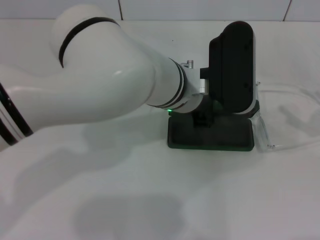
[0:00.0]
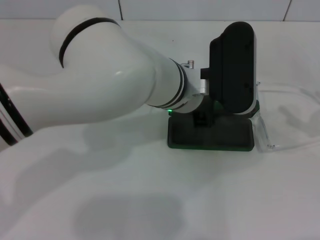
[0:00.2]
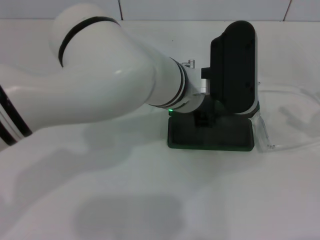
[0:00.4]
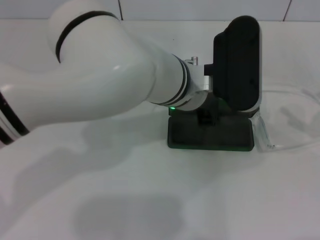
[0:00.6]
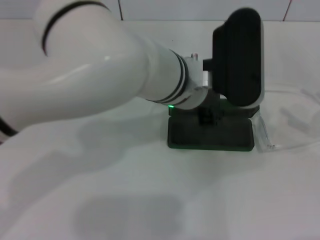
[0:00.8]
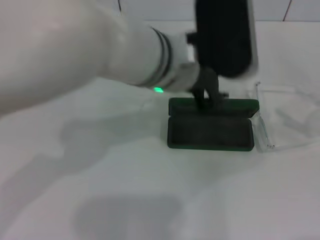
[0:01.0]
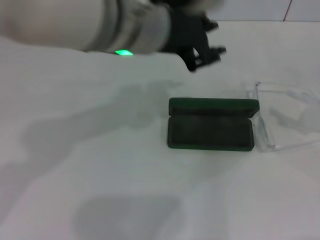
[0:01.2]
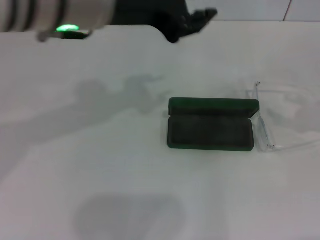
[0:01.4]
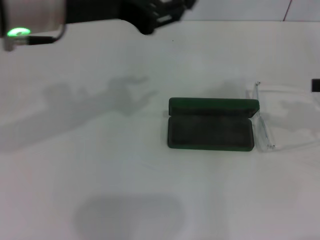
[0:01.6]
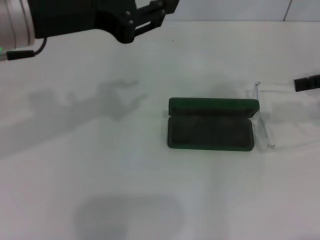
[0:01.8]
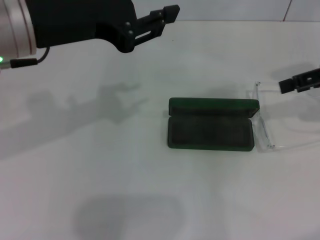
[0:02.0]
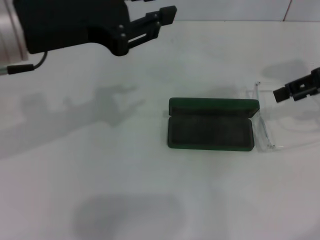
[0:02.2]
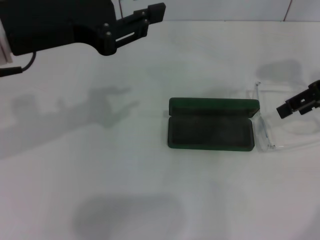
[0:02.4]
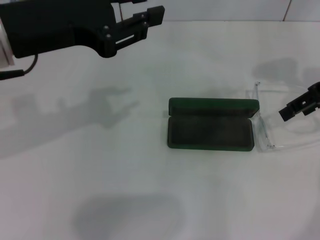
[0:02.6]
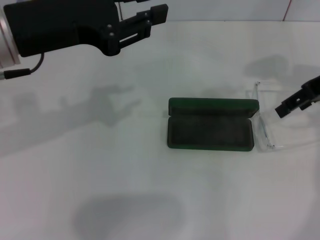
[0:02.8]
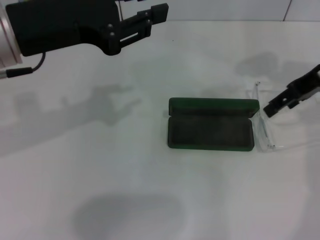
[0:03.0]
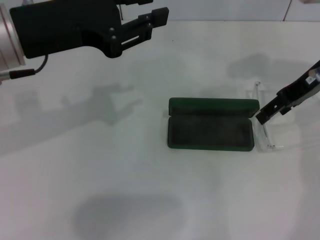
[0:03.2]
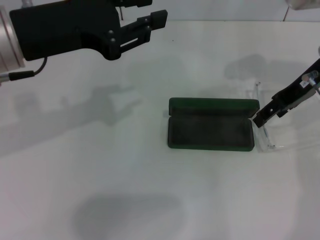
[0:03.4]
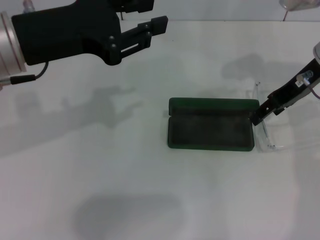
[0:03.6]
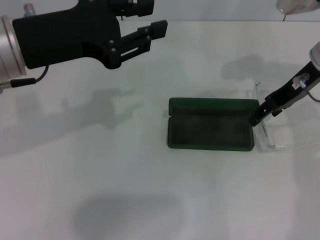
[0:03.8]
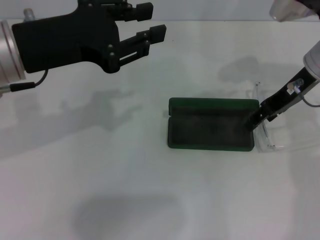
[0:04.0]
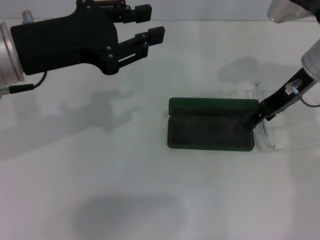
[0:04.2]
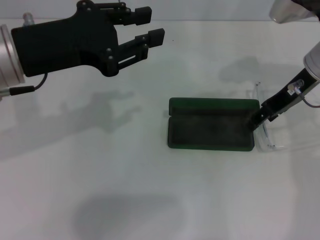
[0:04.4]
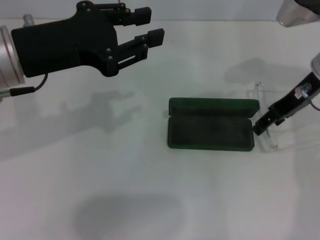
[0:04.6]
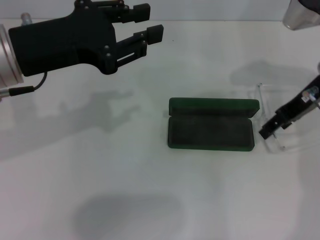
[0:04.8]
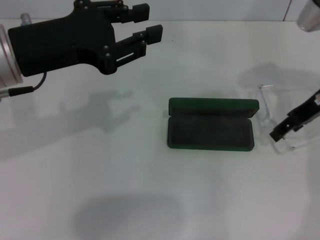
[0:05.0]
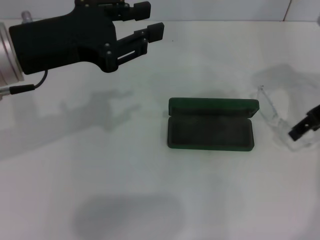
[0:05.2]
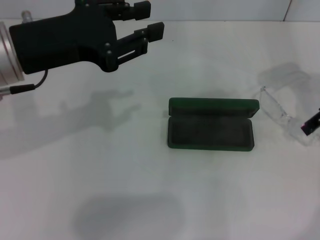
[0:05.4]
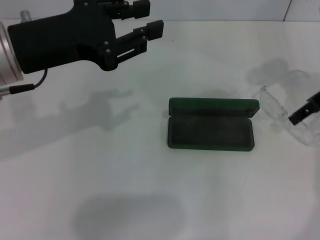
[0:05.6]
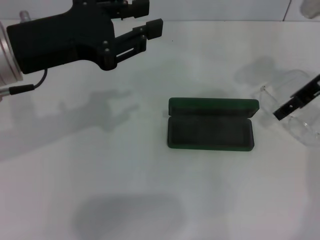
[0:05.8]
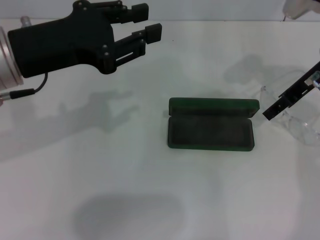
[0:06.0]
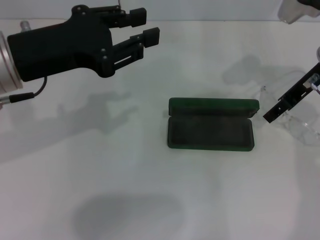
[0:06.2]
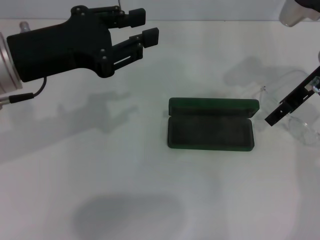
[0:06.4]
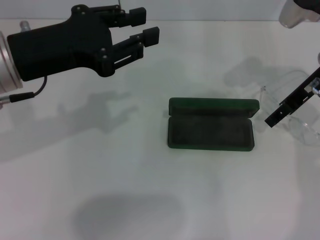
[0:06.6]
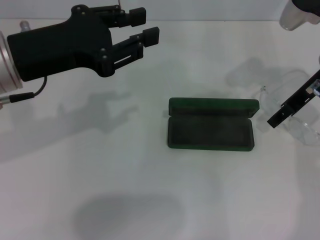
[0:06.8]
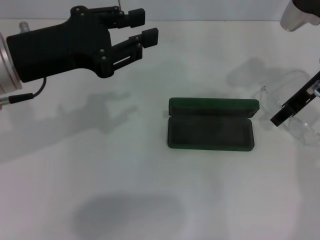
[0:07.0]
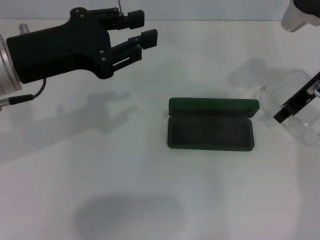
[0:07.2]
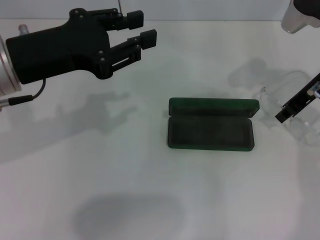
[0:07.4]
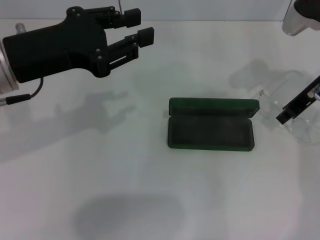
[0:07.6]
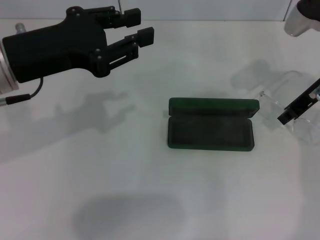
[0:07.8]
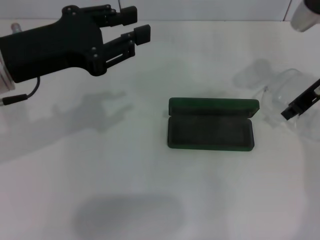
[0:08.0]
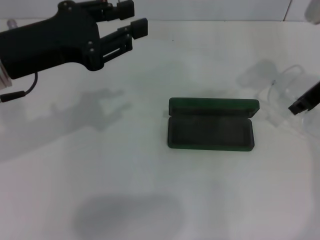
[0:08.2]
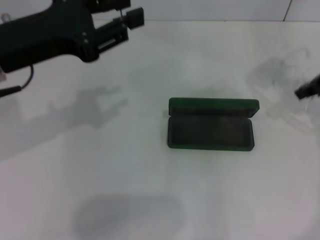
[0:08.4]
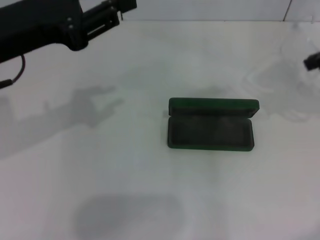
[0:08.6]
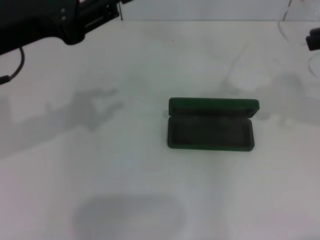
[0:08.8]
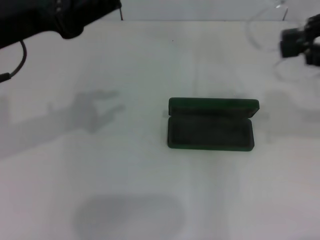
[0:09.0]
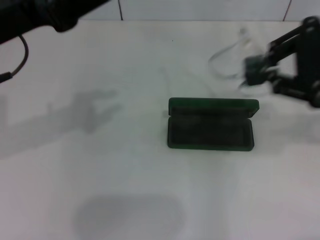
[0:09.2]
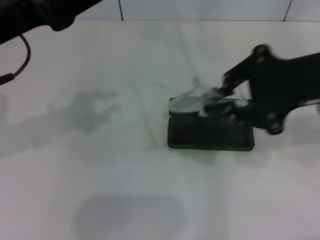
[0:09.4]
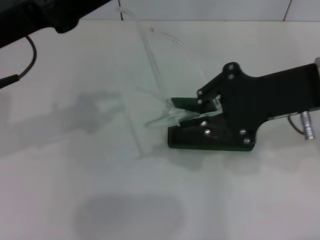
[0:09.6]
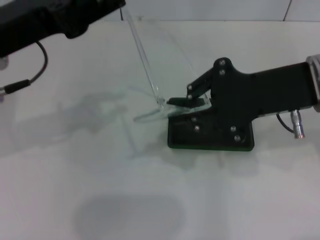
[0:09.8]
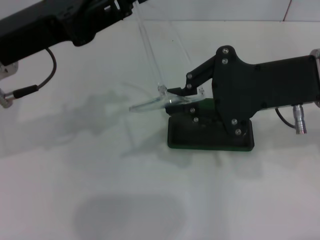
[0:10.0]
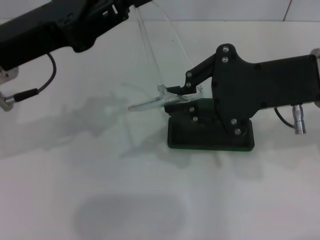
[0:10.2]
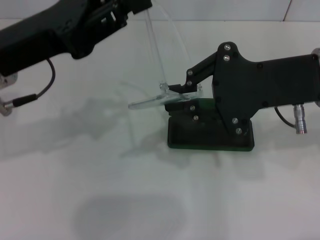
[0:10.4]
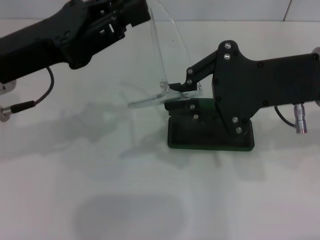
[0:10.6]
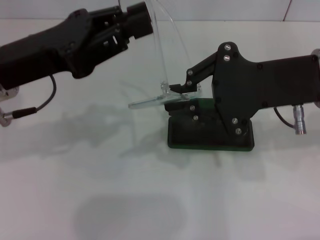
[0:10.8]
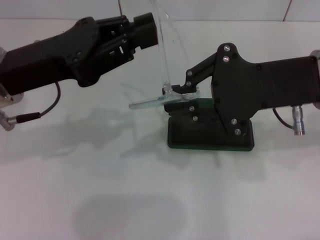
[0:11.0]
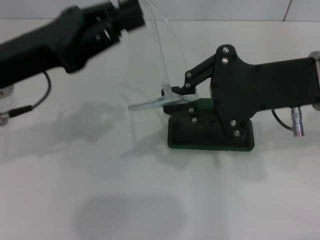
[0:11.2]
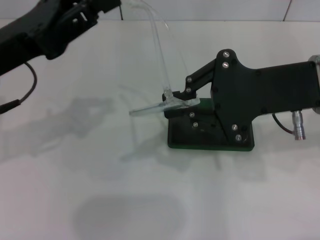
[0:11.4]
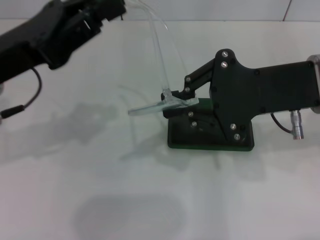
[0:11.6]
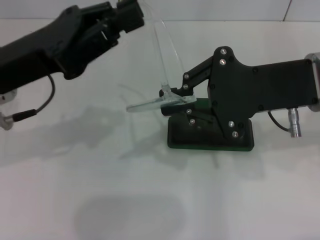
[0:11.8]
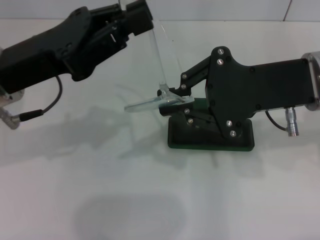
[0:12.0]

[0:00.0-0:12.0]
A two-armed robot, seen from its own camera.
Step, 0:00.6 to 0:07.2: Grab the eyeglass frame with your right hand.
0:00.0 to 0:01.6: The left gripper travels to the left and upward by some 20 cm, while the right gripper shifts roughly 10 cm upward and forward.
0:01.6 to 0:03.0: The right gripper is displaced to the left and forward by approximately 15 cm. Meanwhile the left gripper ends up roughly 5 cm from where it was.
0:03.0 to 0:04.4: The right gripper changes place by approximately 5 cm.
0:06.0 to 0:07.6: The right gripper closes up.
0:07.6 to 0:09.0: The right gripper moves upward and backward, roughly 15 cm.
0:09.0 to 0:10.4: The right gripper goes some 10 cm to the left and downward.
0:10.4 to 0:12.0: The grippers move only a little.

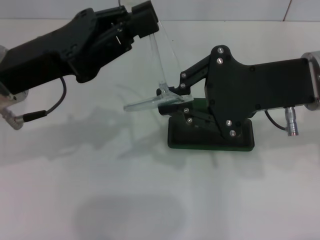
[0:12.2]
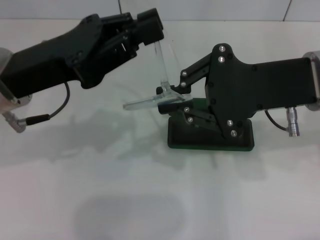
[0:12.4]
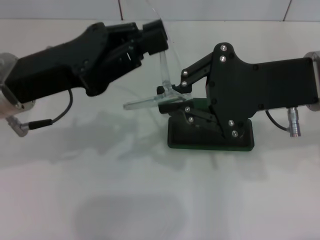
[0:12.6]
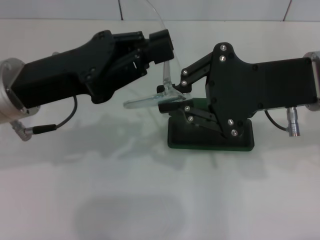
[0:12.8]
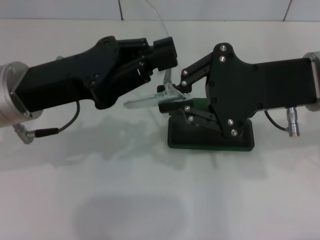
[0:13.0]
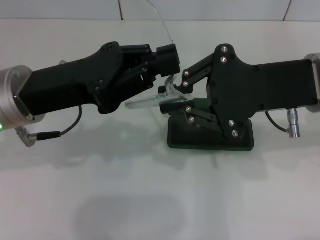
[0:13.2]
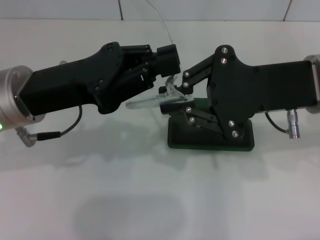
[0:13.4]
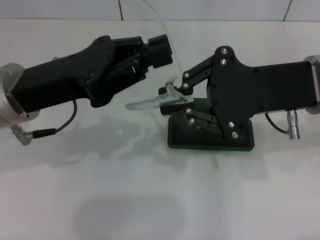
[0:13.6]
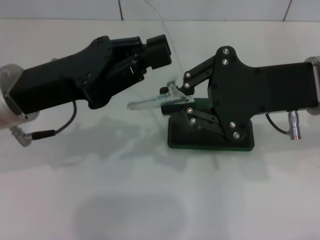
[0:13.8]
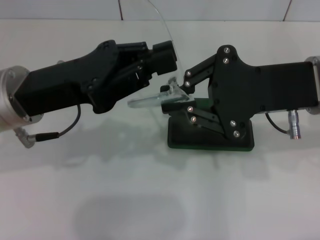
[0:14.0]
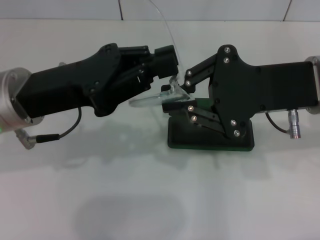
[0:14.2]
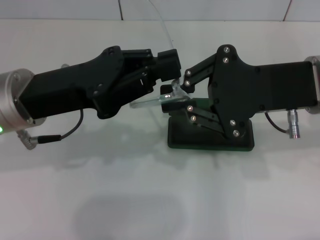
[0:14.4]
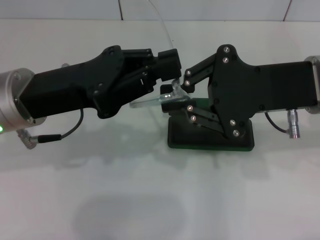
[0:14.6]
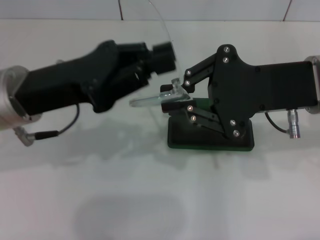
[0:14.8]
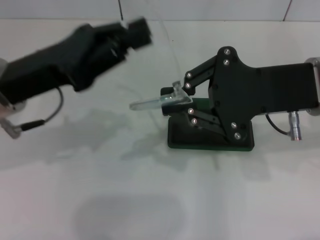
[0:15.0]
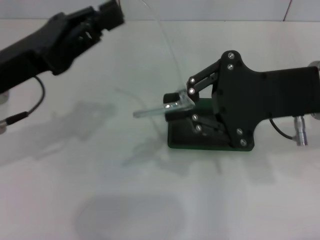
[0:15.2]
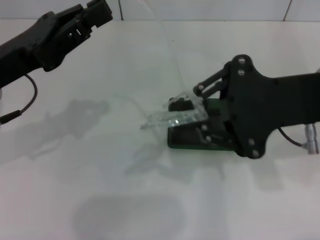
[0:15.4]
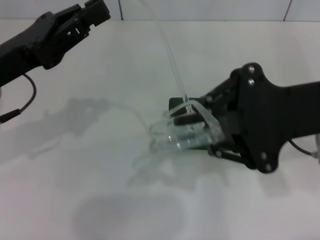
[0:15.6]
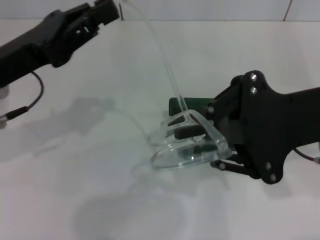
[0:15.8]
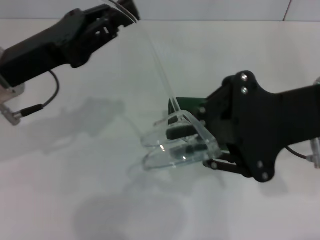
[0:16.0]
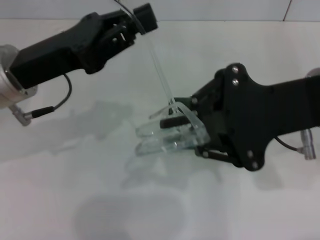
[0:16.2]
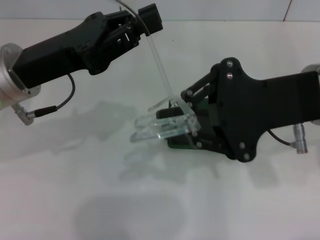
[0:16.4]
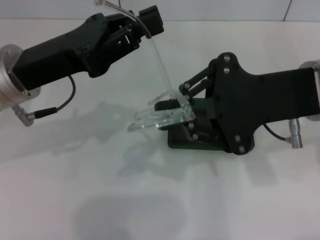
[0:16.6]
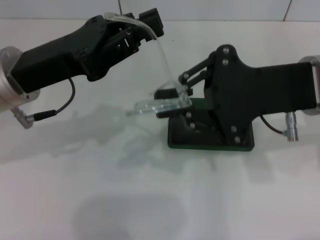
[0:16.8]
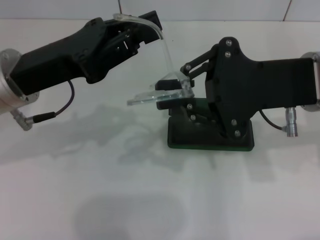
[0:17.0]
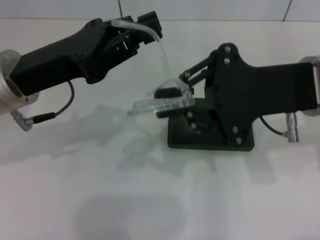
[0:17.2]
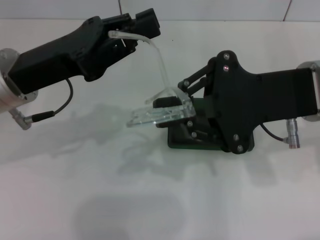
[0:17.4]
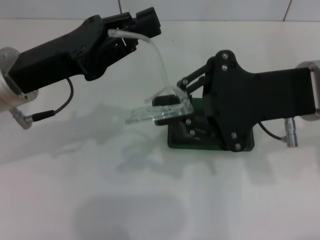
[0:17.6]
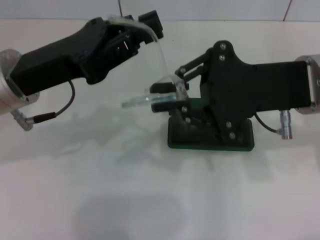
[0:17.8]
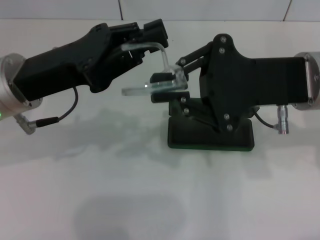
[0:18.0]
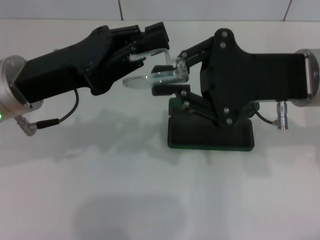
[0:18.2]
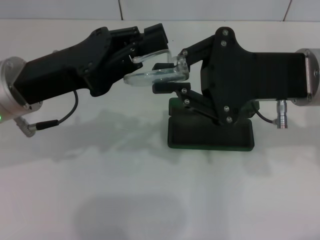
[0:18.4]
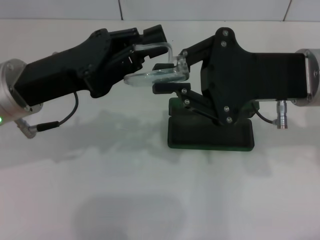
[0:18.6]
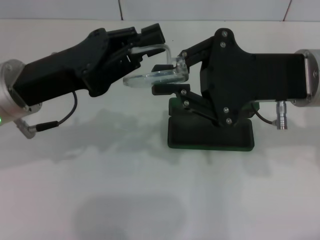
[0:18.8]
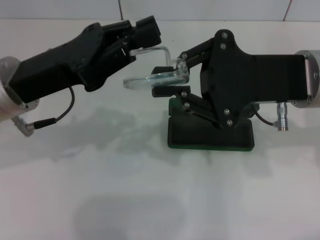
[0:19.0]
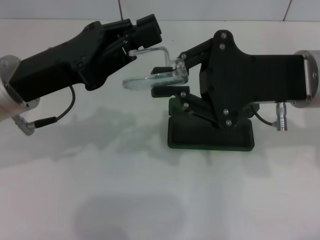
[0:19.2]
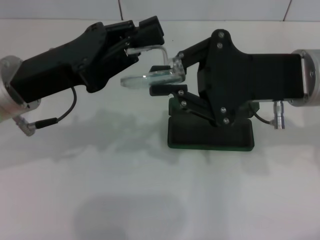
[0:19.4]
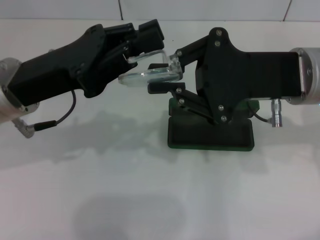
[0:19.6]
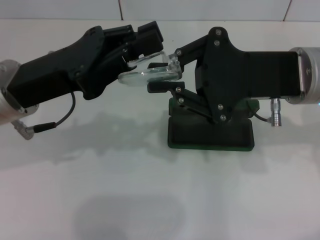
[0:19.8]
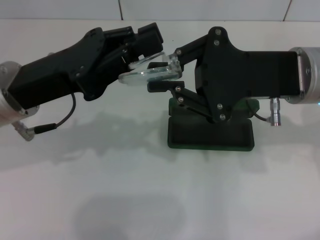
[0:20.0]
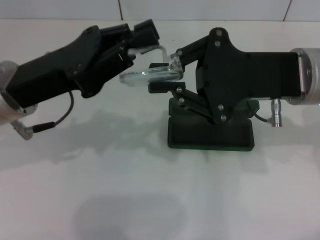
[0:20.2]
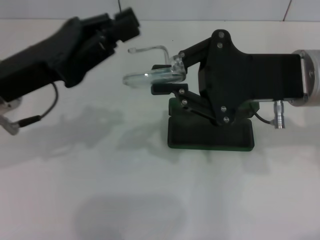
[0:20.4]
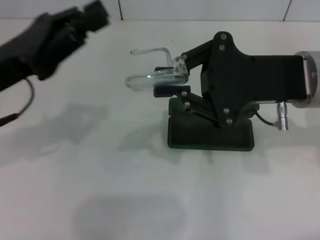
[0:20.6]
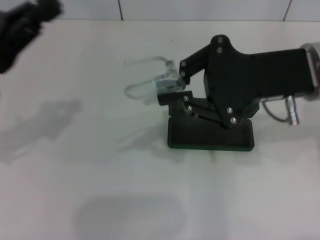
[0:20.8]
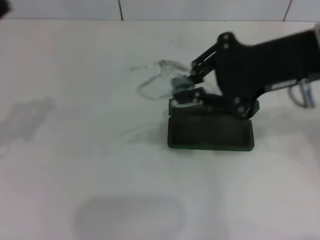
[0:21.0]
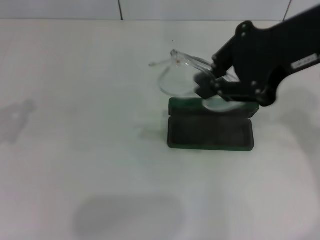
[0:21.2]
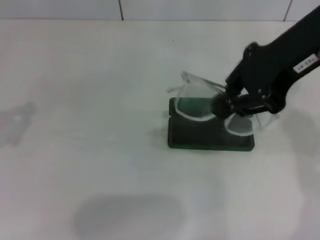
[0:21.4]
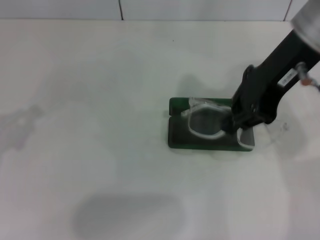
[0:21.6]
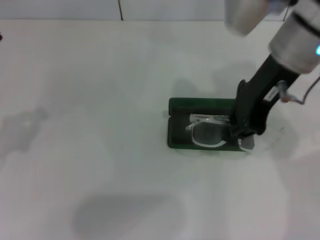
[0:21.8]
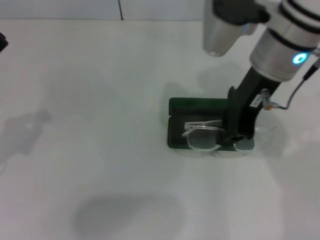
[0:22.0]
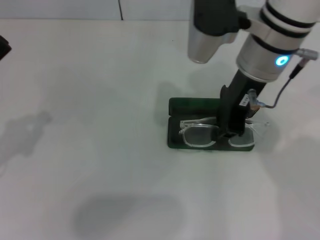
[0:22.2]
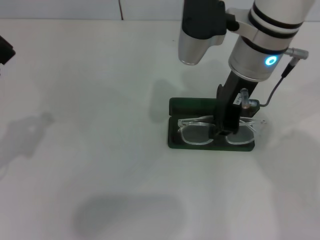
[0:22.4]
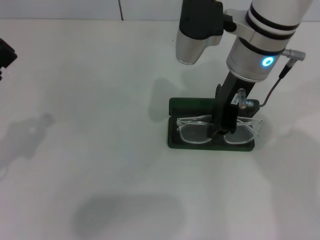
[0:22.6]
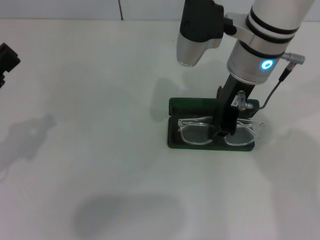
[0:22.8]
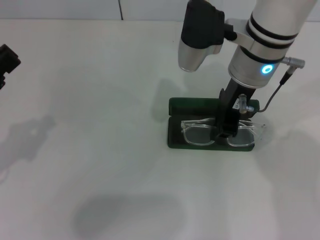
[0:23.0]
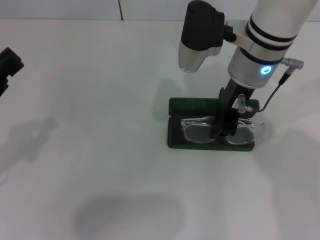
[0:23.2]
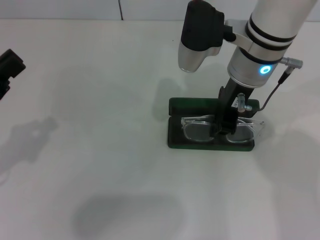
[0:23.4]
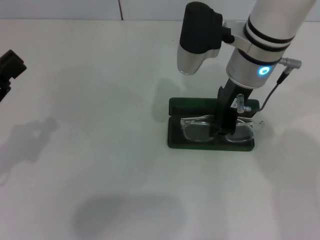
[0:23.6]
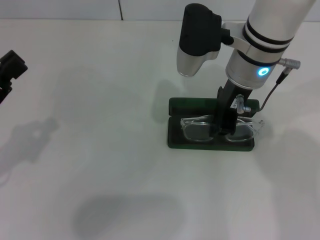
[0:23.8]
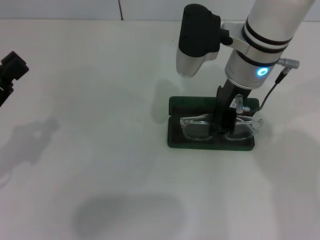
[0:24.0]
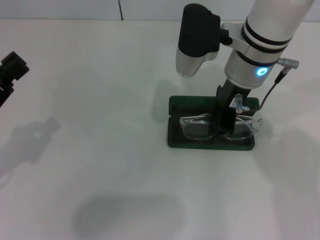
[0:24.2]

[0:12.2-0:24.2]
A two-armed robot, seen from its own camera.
Step, 0:12.2 to 0:20.2: Fold the frame with your left hand.
0:15.2 to 0:16.6: The grippers move only a little.
0:18.2 to 0:19.8: Both grippers stay put.
0:19.8 to 0:21.2: The left gripper heads to the left, covering some 15 cm. The right gripper is displaced upward by about 10 cm.
0:21.2 to 0:22.6: The right gripper shifts approximately 15 cm downward, to the left and forward.
0:22.6 to 0:24.2: The grippers move only a little.
